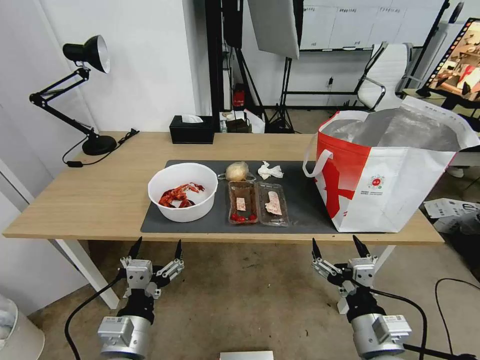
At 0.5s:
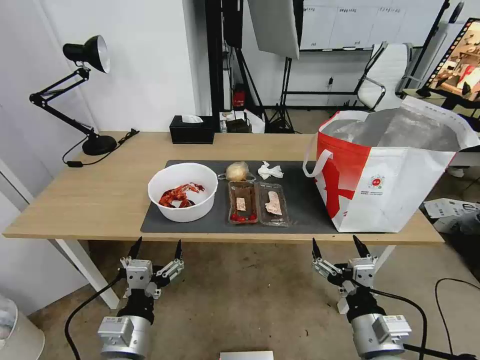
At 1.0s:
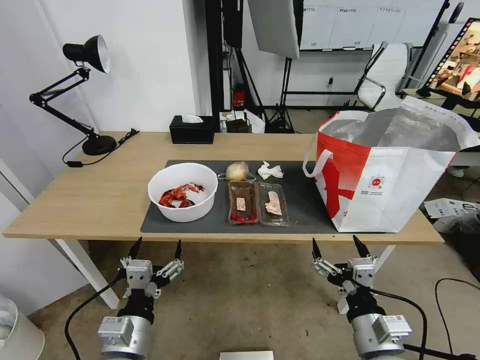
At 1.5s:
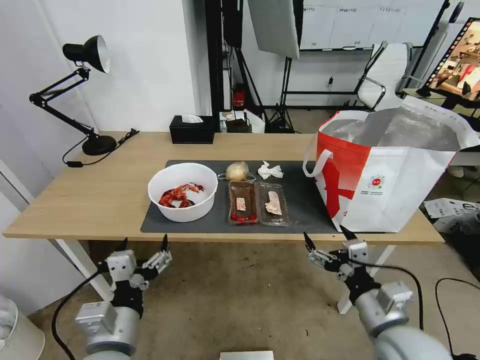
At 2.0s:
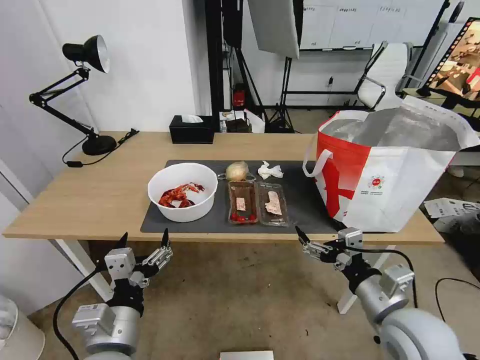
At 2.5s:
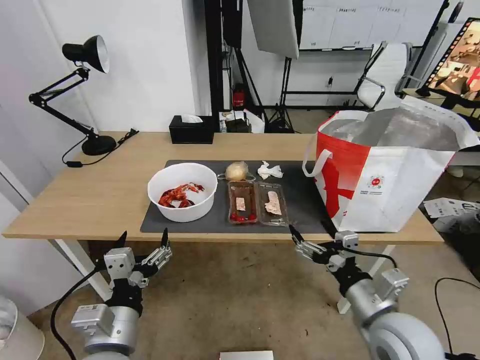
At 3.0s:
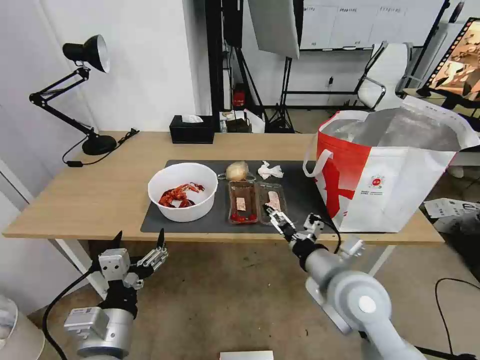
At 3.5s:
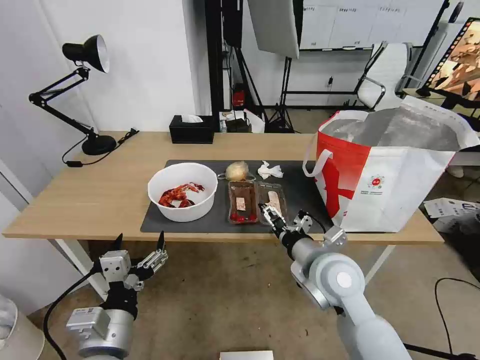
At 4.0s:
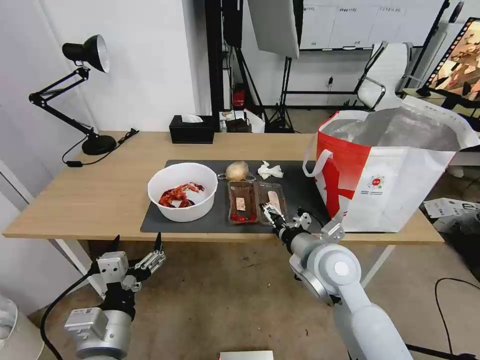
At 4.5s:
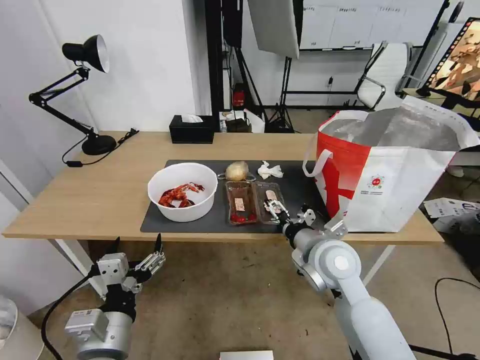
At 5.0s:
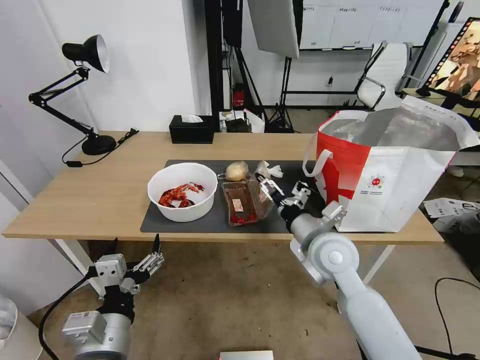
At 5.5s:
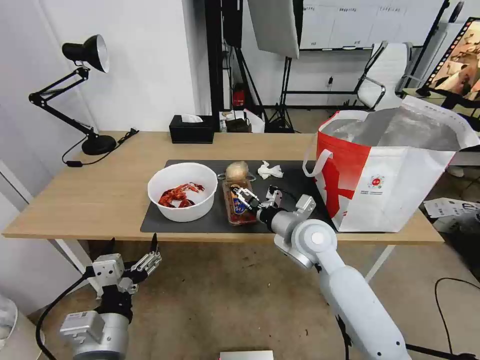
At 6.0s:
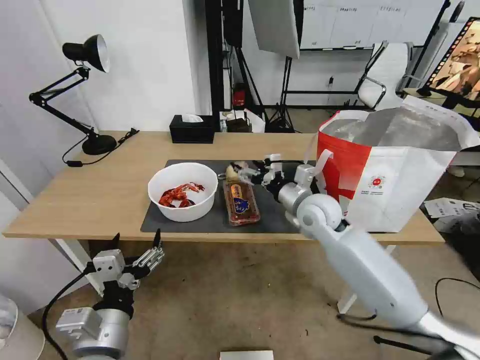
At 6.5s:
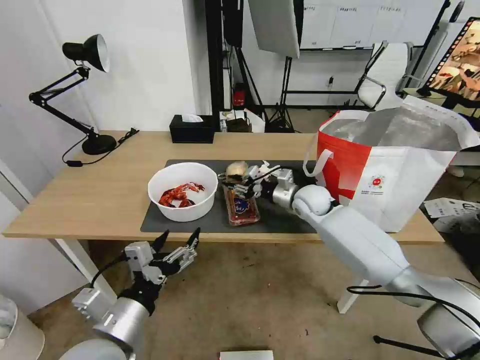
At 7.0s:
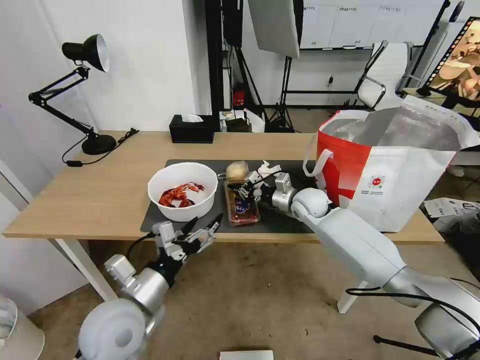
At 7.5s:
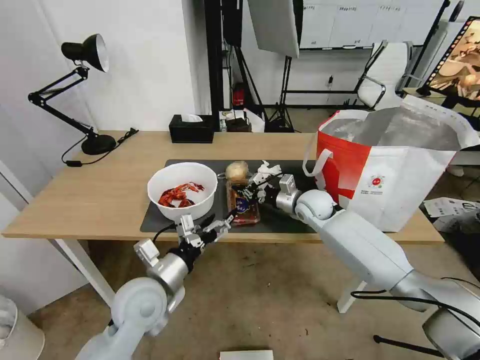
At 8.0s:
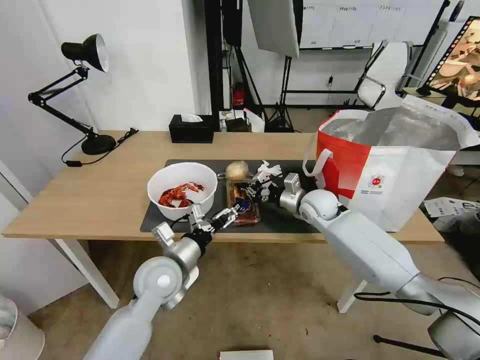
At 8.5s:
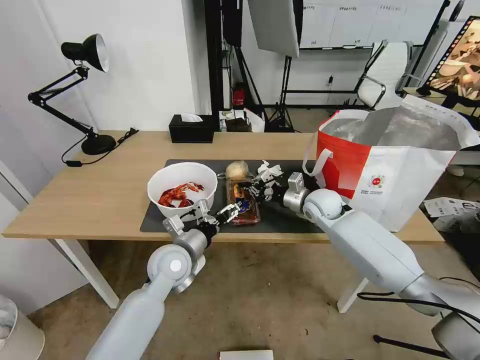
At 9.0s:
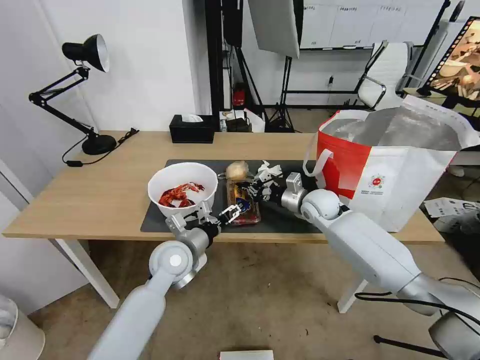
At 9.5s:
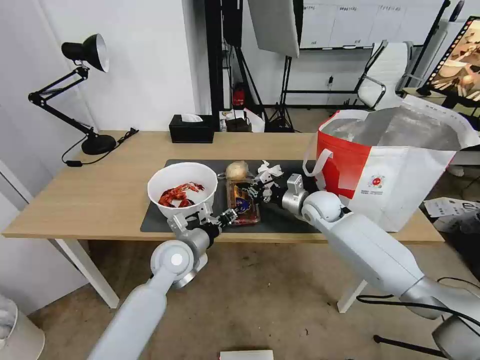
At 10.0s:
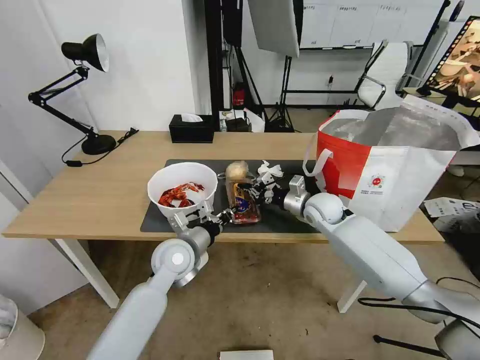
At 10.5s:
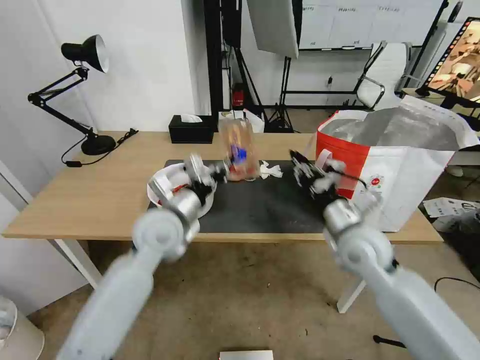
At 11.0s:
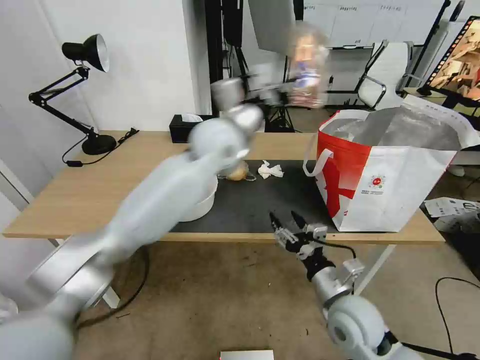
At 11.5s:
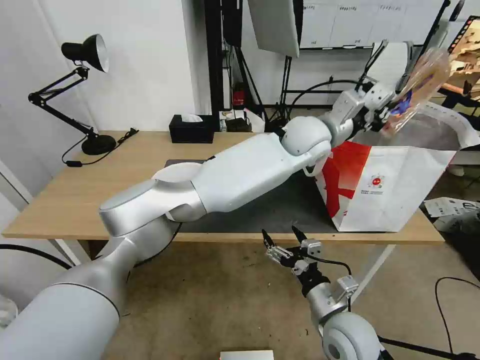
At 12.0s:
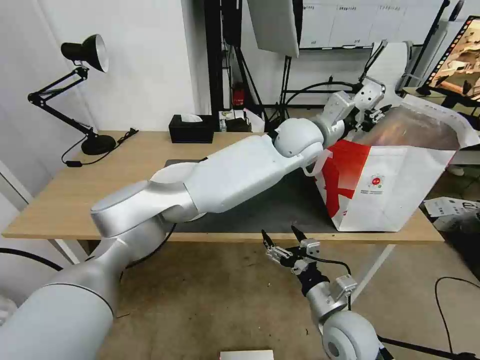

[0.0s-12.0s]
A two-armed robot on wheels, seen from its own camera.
Task of the whole recording: Pick up the trash from the table and place it into the takeout bag.
2.0s to 4.0s: The right gripper is displaced forward and to the left by some 15 cm.
4.0s to 6.0s: The right gripper is displaced forward by about 10 cm.
6.0s to 8.0s: The left gripper moves forward, approximately 20 cm. The right gripper moves forward and downward, roughly 10 cm, and closes.
8.0s to 10.0s: The left gripper is displaced forward by some 5 cm, and closes.
10.0s to 12.0s: The left gripper heads to the right, upward and forward, covering some 40 cm; the right gripper shifts about 30 cm backward, and opens up.

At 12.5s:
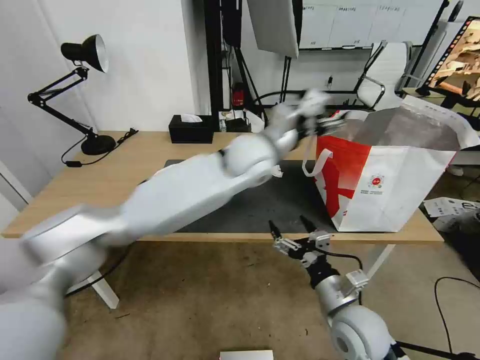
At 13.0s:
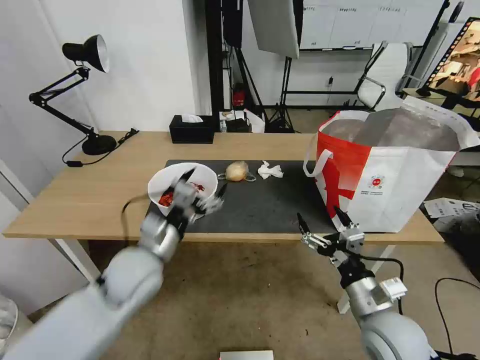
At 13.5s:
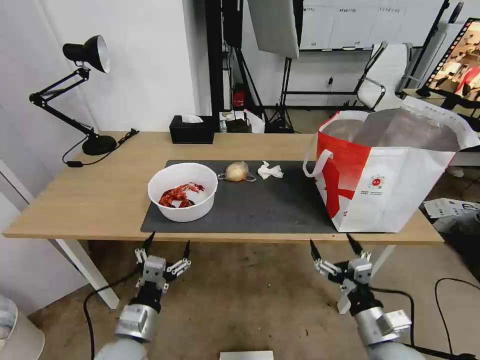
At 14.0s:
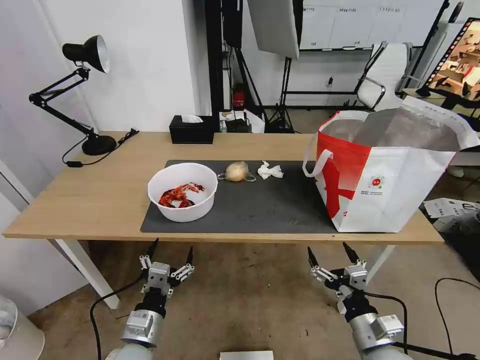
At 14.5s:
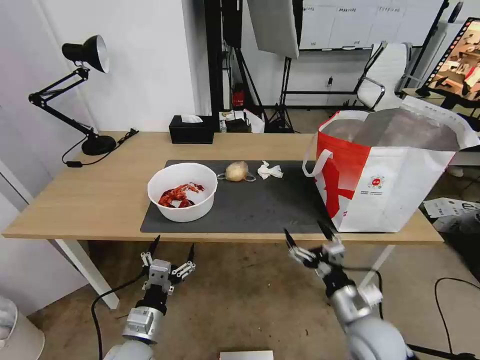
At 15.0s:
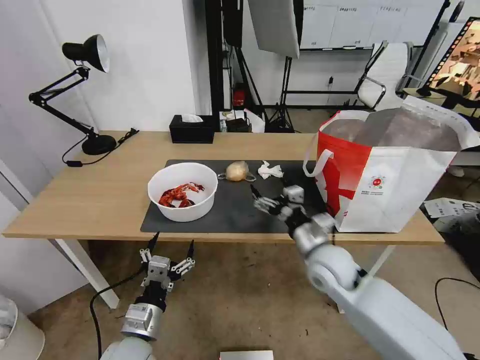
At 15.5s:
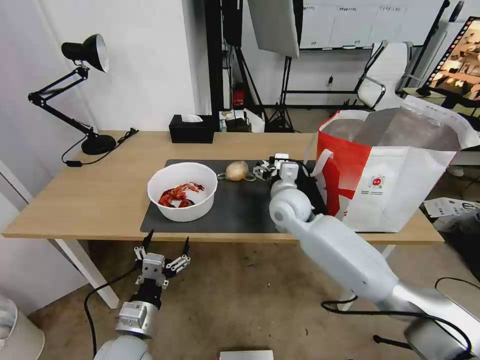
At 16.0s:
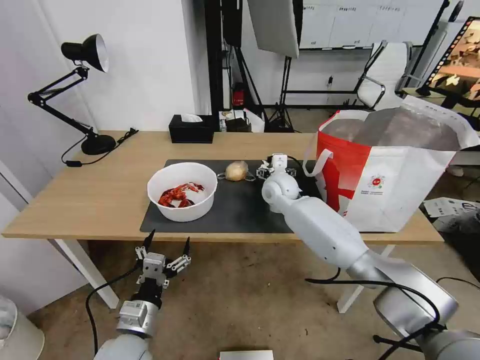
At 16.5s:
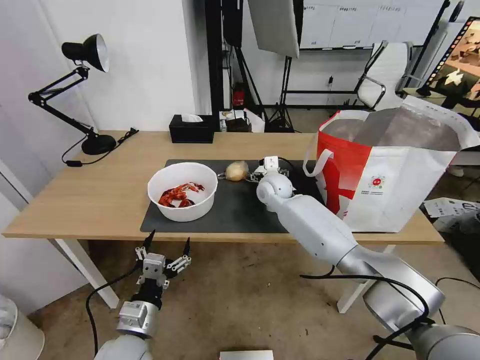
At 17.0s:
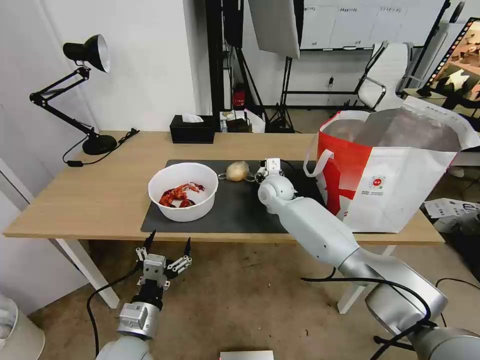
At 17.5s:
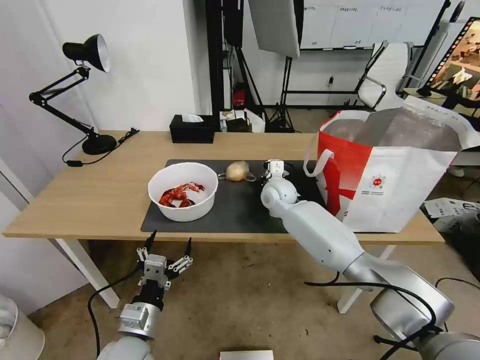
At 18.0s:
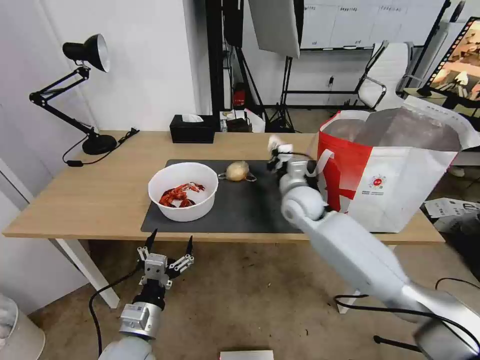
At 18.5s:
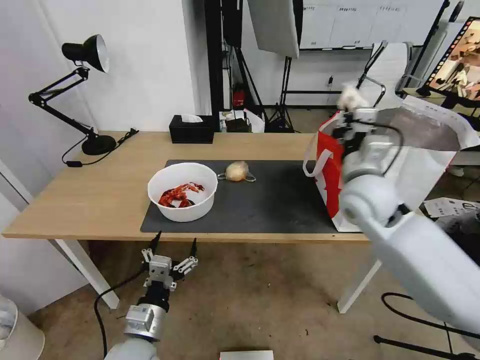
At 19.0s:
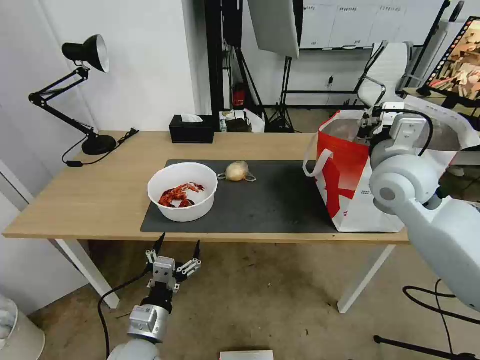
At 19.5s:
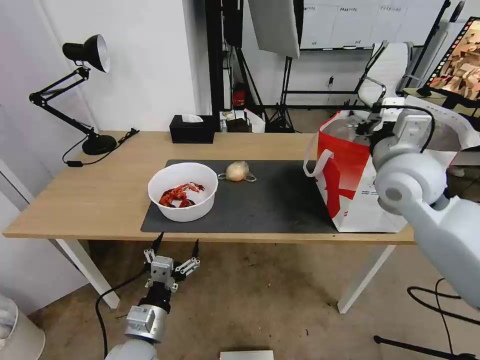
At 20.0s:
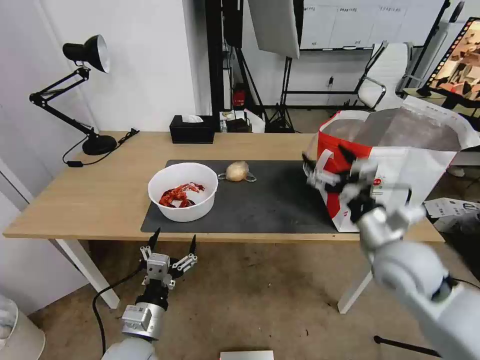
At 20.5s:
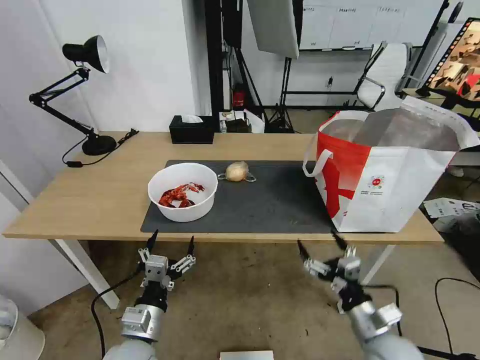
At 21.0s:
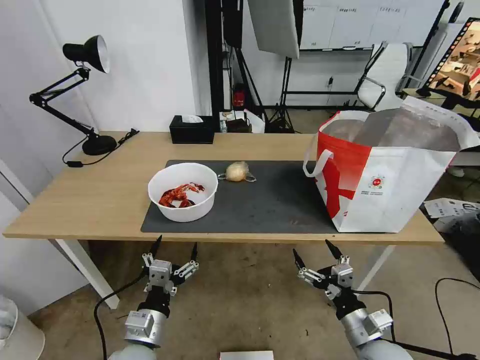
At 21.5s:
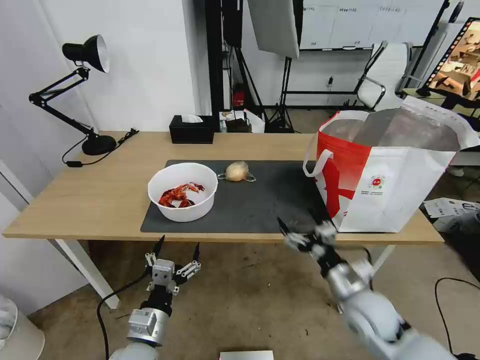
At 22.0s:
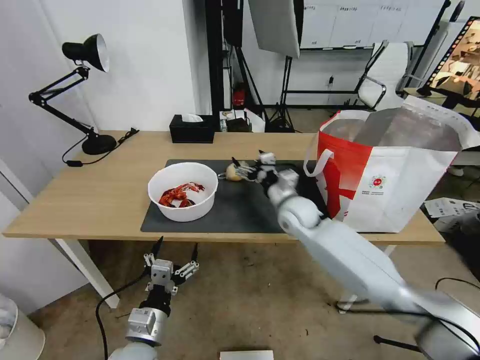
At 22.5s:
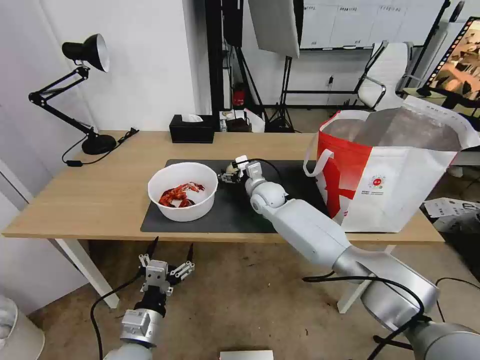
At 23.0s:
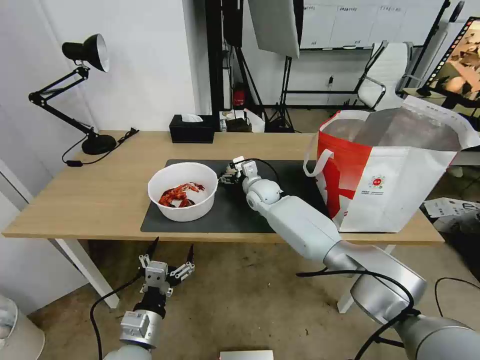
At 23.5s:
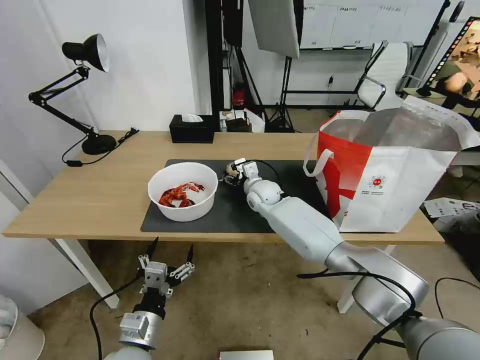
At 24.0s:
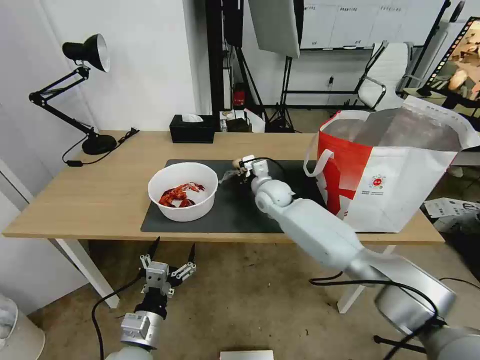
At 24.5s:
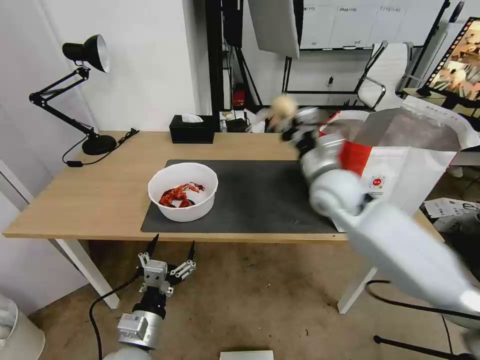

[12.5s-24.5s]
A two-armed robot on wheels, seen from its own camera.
Task of the whole recording: Pick up the trash from the table and place it into the takeout bag.
12.5s to 14.5s: The left gripper shifts roughly 40 cm backward, downward and to the left.
14.5s to 16.5s: The right gripper moves forward and to the left, some 40 cm.
16.5s to 18.5s: The right gripper heads backward, to the right and upward, covering about 25 cm, and closes up.
18.5s to 20.5s: The right gripper travels downward and backward by about 30 cm, and opens its fingers.
20.5s to 22.5s: The right gripper heads forward and to the left, covering about 40 cm.
22.5s to 24.5s: The right gripper goes roughly 20 cm upward, backward and to the right, and closes up.

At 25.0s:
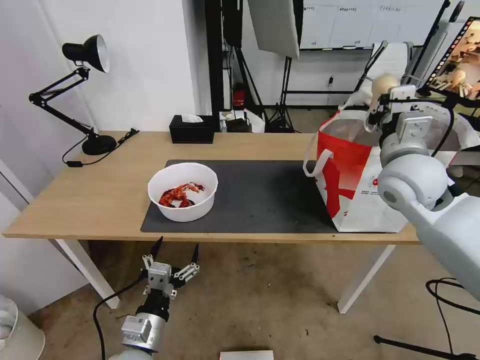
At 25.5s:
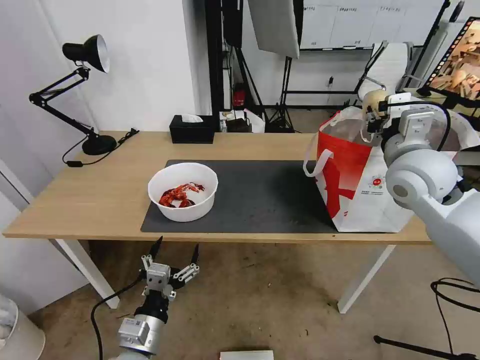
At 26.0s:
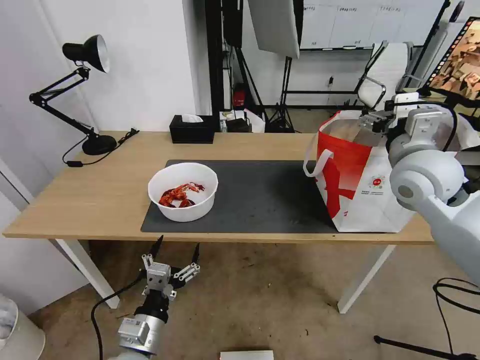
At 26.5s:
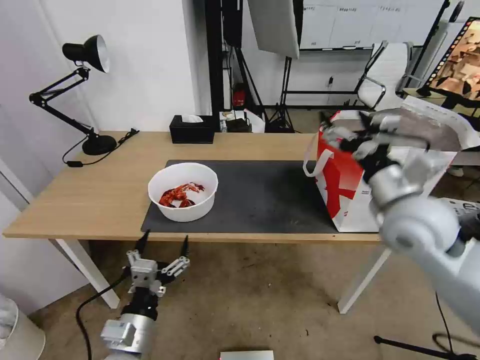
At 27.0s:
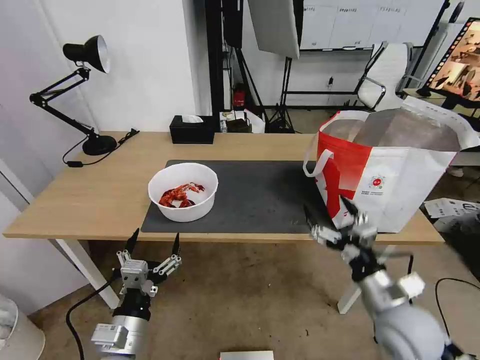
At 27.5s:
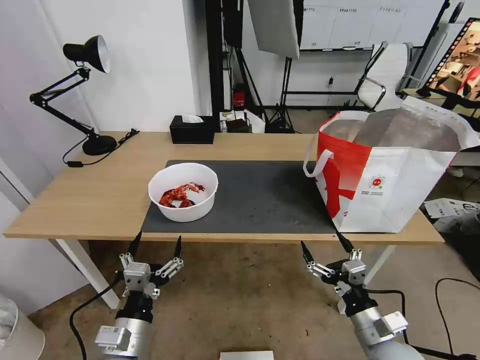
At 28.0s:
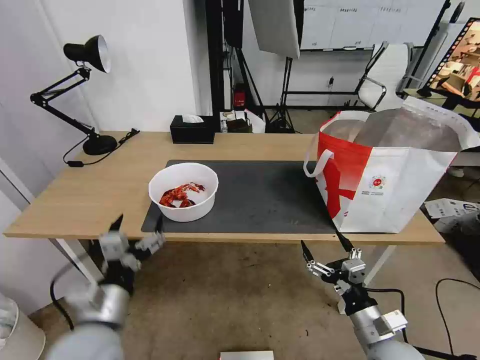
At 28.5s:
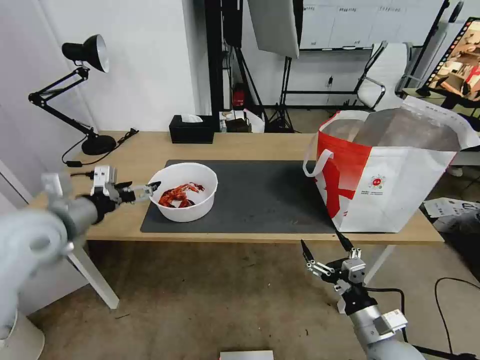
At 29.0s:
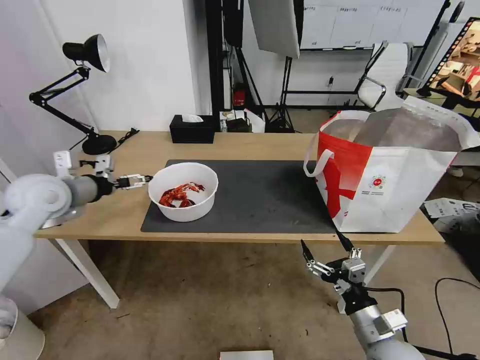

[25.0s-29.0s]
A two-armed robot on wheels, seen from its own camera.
Task of the whole recording: Pick up the trash from the table and place it into the takeout bag.
25.0s to 27.0s: The right gripper is displaced downward and backward by some 30 cm, and opens up.
27.0s to 29.0s: The right gripper shifts some 5 cm downward; the left gripper moves forward, upward and to the left, about 35 cm.
